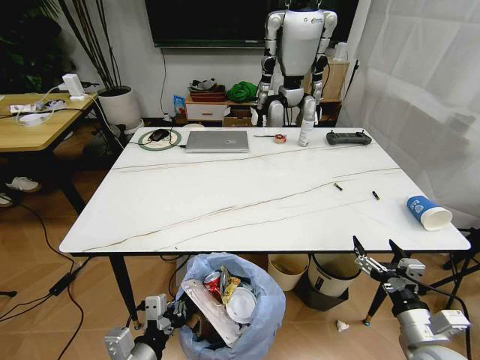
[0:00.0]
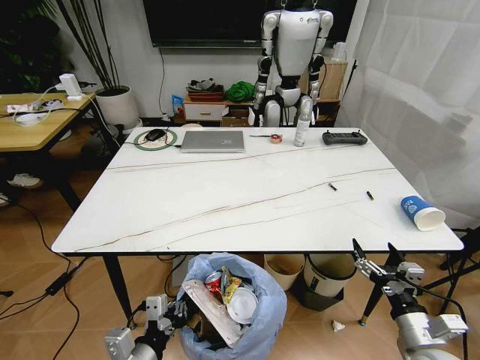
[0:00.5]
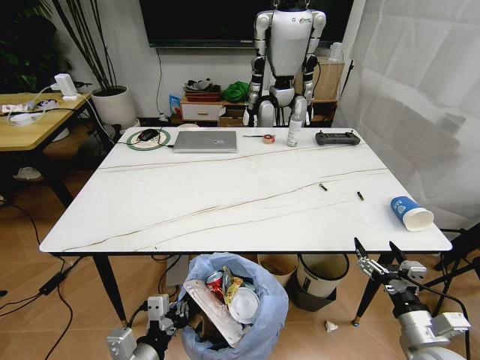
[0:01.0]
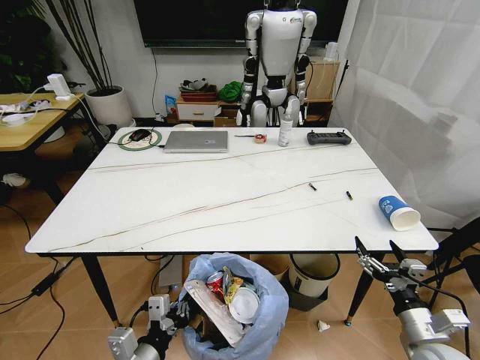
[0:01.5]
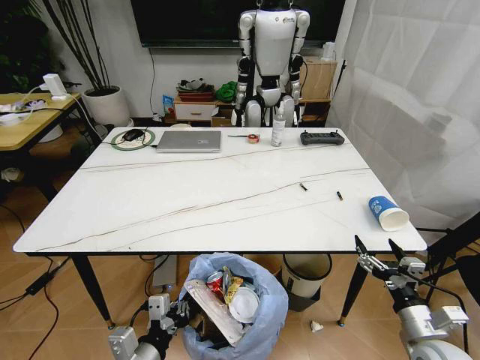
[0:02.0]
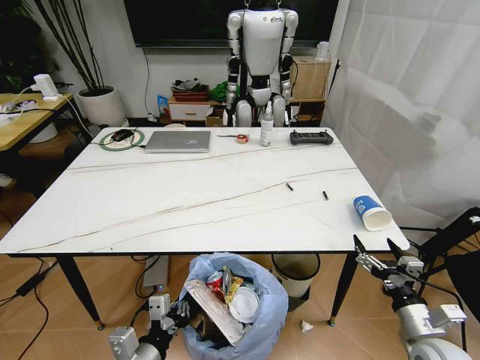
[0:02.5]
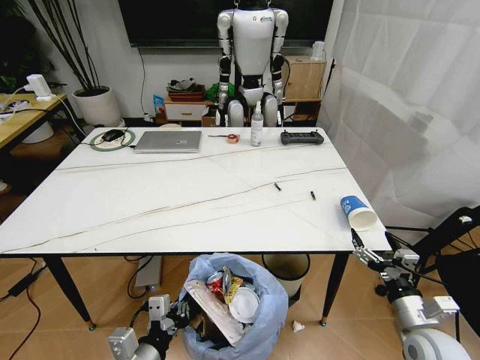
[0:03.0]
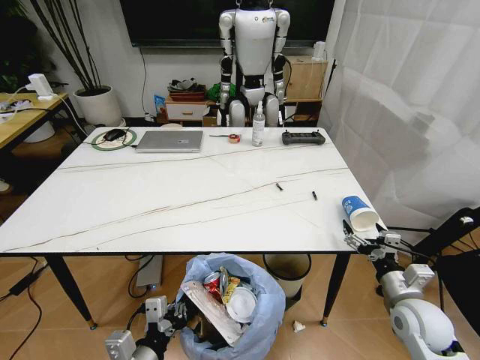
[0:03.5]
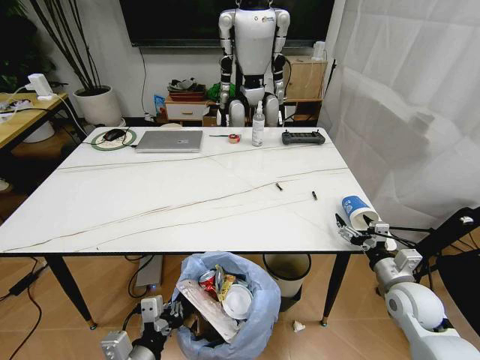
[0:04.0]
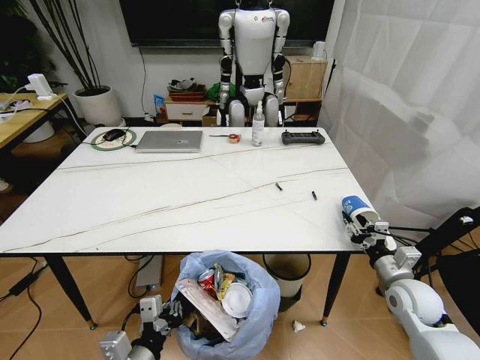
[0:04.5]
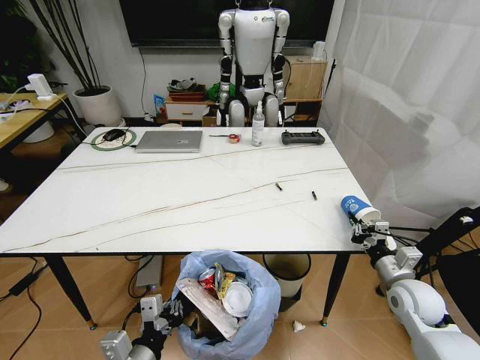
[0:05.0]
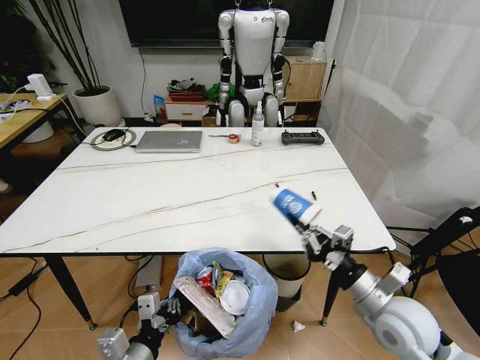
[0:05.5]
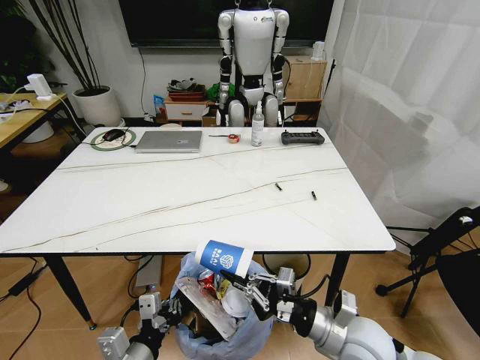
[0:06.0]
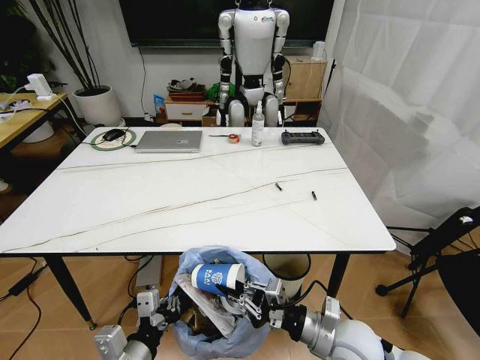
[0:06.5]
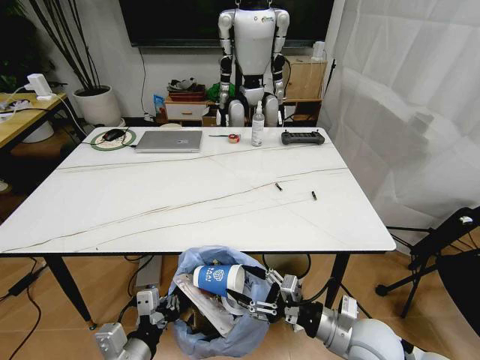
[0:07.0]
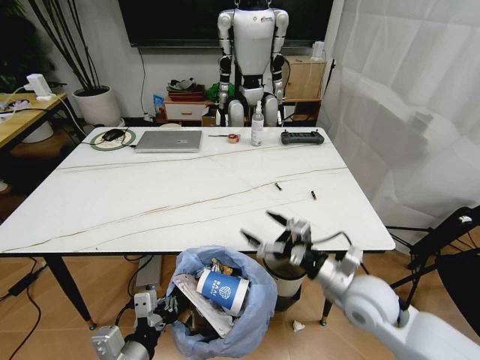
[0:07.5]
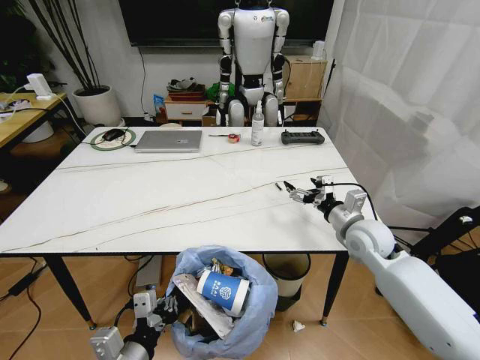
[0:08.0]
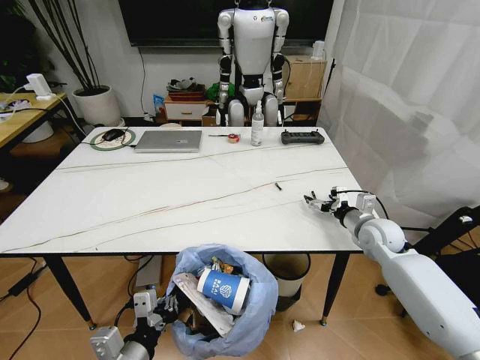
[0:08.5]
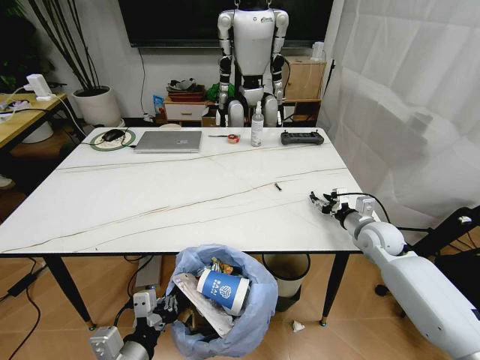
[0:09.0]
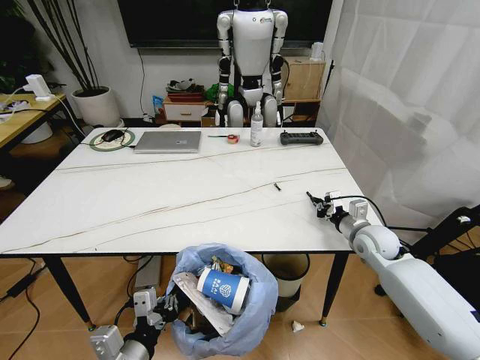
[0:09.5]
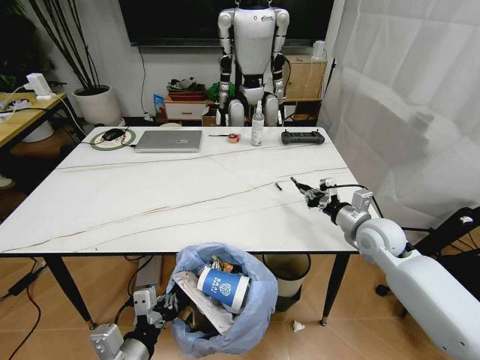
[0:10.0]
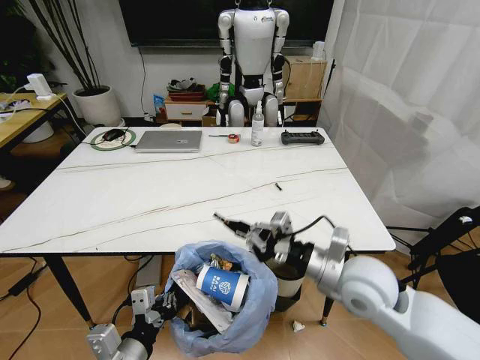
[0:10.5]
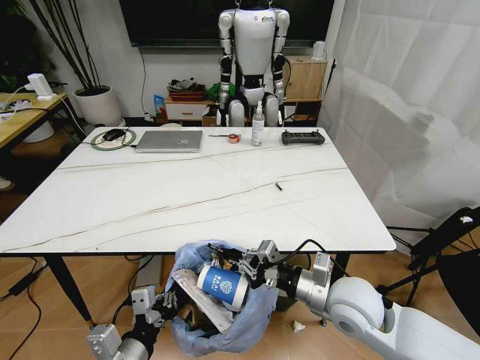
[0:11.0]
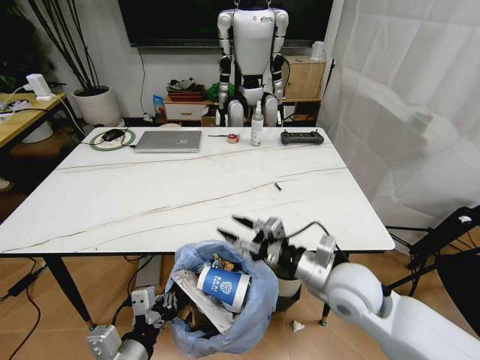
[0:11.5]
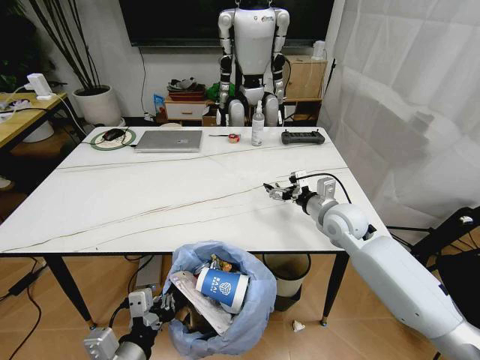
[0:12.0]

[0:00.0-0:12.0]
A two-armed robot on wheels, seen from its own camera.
Task of the whole recording: Pick up the trash bin and place the trash from the table into it.
0:02.0 to 0:04.0: The right gripper shifts roughly 10 cm forward.
0:04.0 to 0:06.0: The right gripper heads to the left and backward, covering roughly 20 cm, and closes up.
0:06.0 to 0:08.0: The right gripper travels forward by roughly 20 cm, and opens its fingers.
0:08.0 to 0:10.0: The right gripper closes up.
0:10.0 to 0:12.0: The right gripper heads to the left, covering approximately 5 cm, moves roughly 15 cm backward and comes back, and opens its fingers.

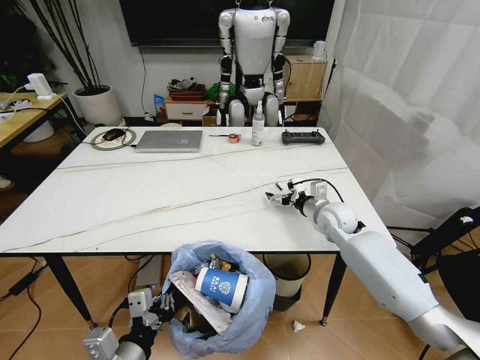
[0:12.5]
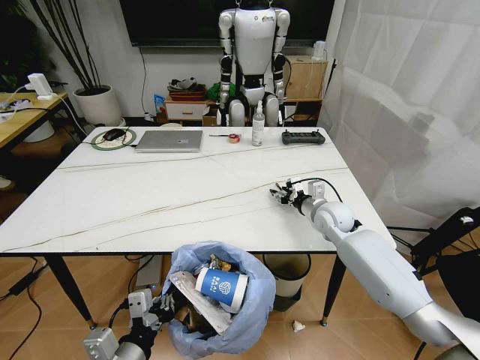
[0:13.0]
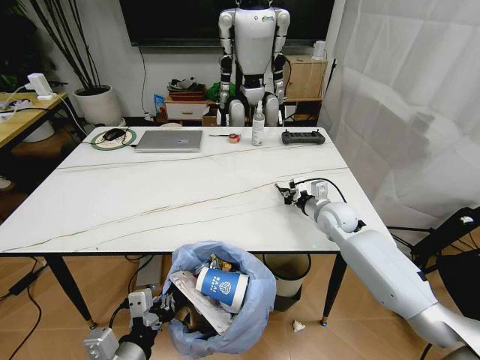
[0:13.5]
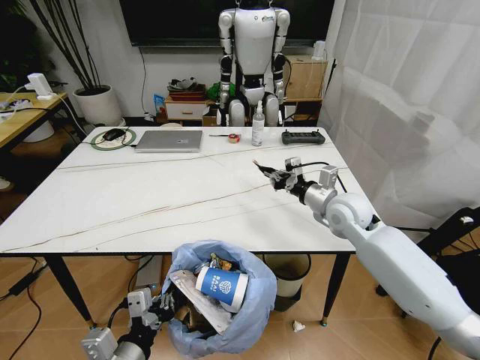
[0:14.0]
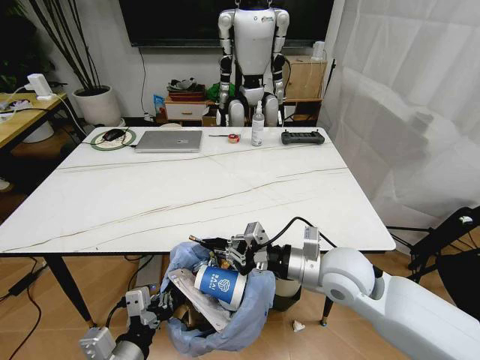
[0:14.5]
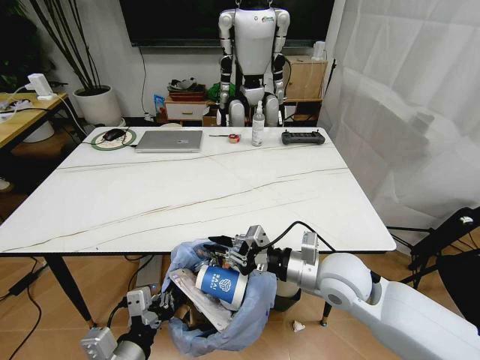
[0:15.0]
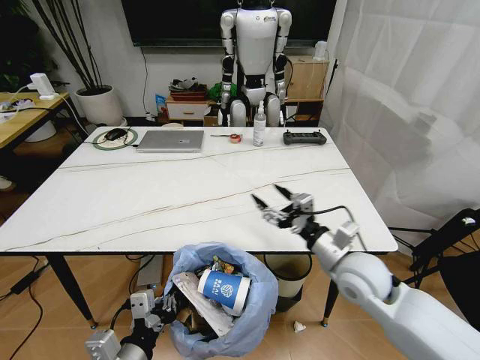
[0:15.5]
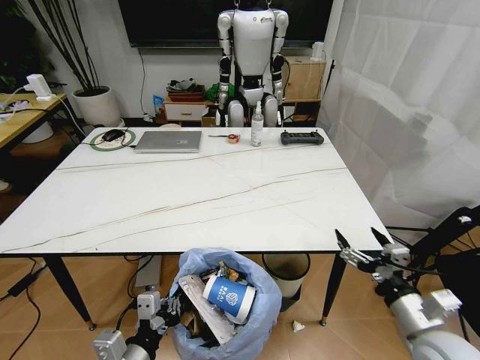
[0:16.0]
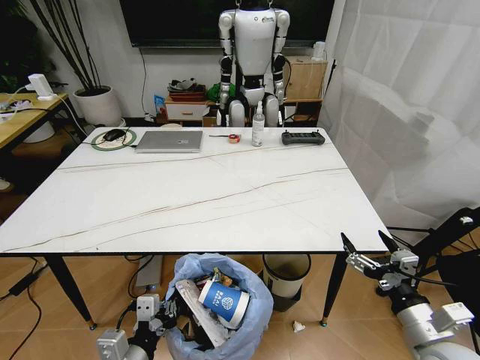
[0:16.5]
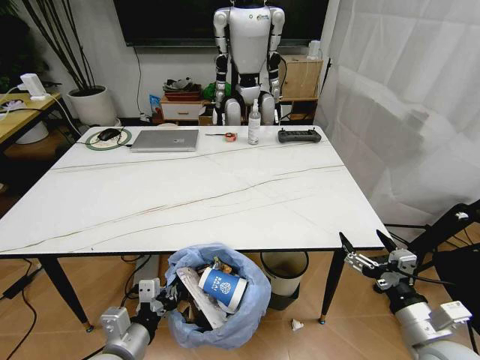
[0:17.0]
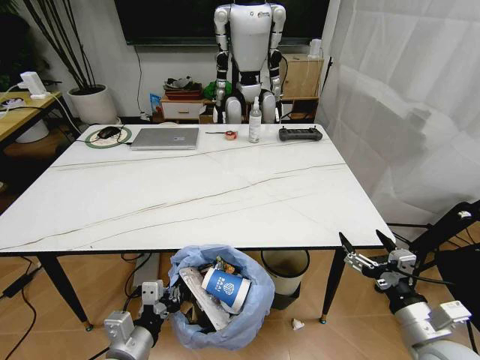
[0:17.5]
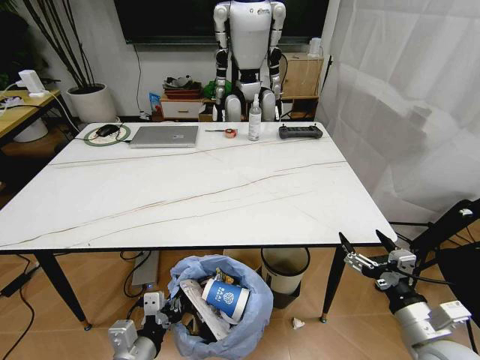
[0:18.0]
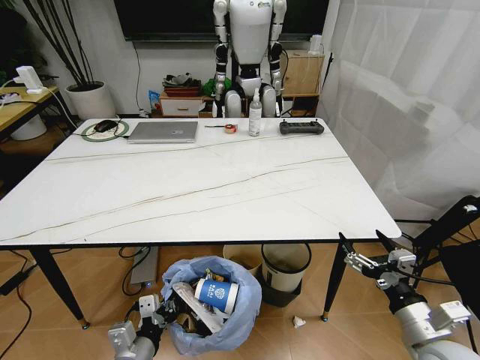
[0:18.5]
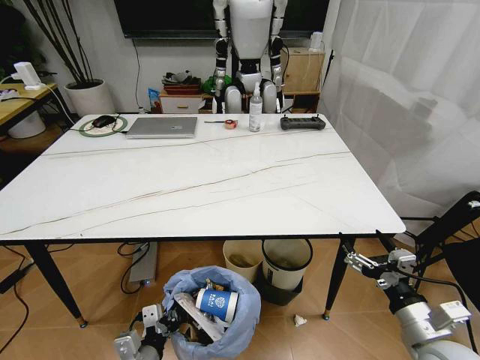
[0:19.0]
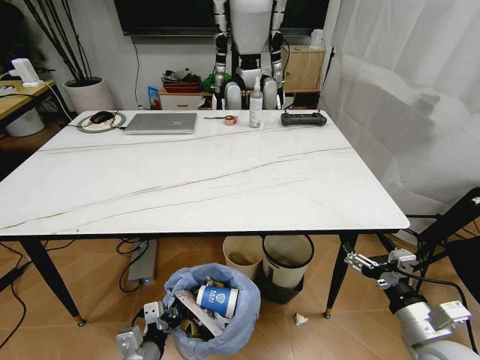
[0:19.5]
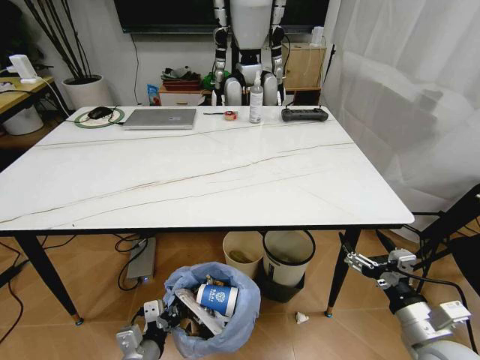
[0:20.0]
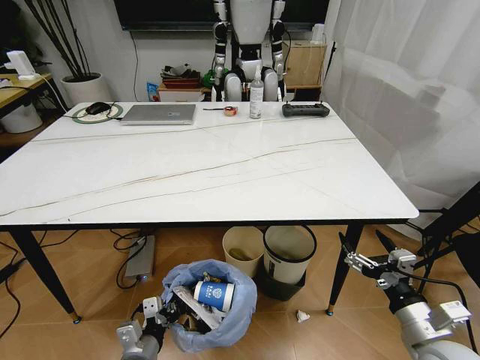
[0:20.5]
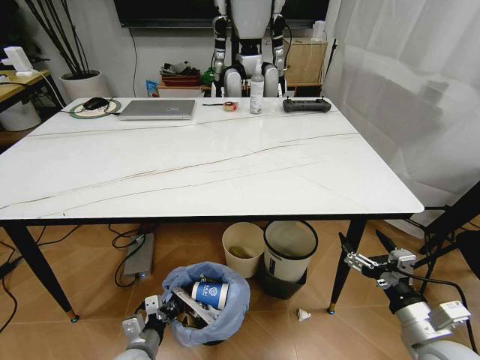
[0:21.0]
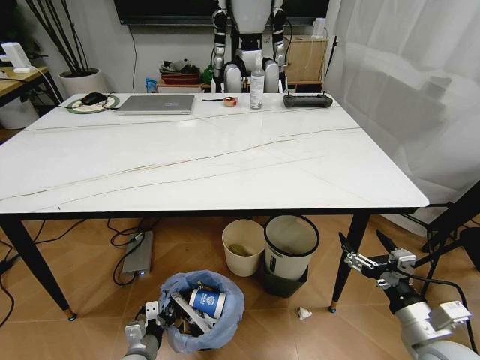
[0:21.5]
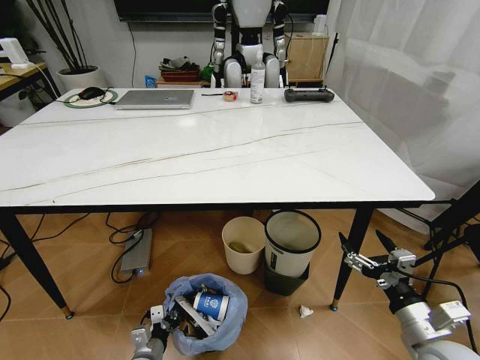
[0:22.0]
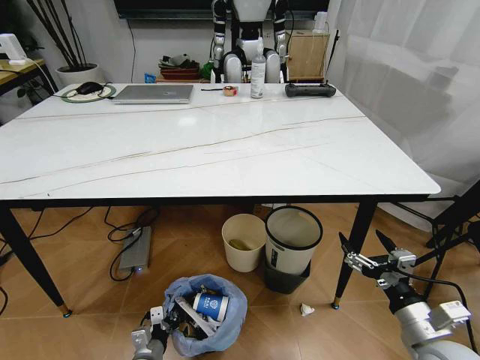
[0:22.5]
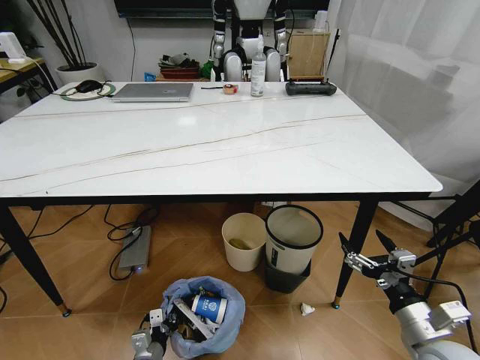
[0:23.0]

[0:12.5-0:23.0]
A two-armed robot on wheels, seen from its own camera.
Task of the whole recording: Pick up the trash bin and place the trash from the table into it.
0:12.5 to 0:14.5: The right gripper shifts roughly 20 cm backward, and closes up.
0:14.5 to 0:16.5: The right gripper shifts roughly 25 cm to the right, backward and downward, and opens.
0:16.5 to 0:19.0: The left gripper shifts some 10 cm downward.
0:19.0 to 0:21.0: The left gripper is displaced downward and forward by about 10 cm.
0:21.0 to 0:23.0: The left gripper goes approximately 10 cm downward.

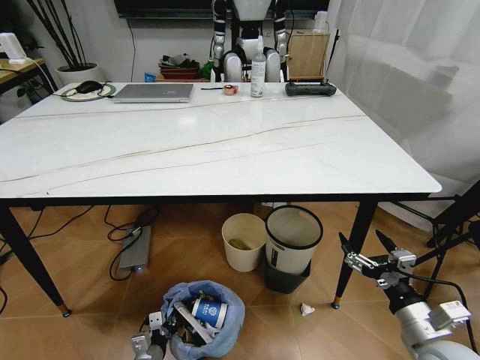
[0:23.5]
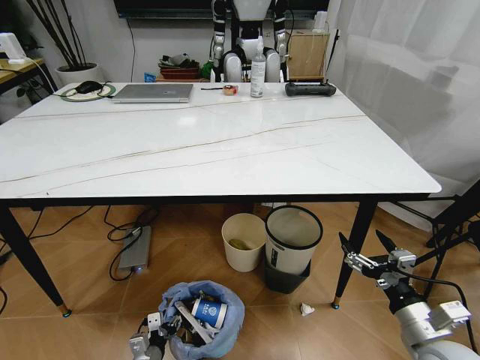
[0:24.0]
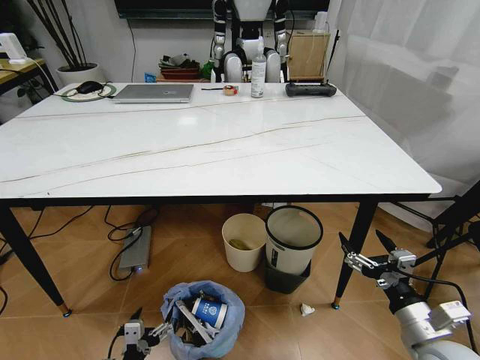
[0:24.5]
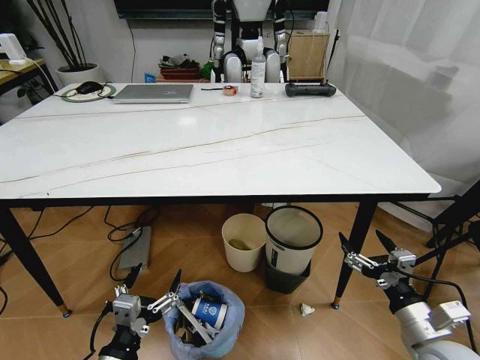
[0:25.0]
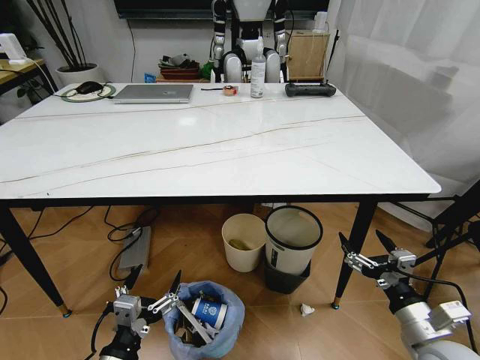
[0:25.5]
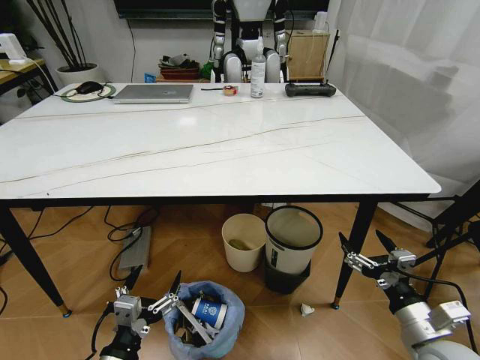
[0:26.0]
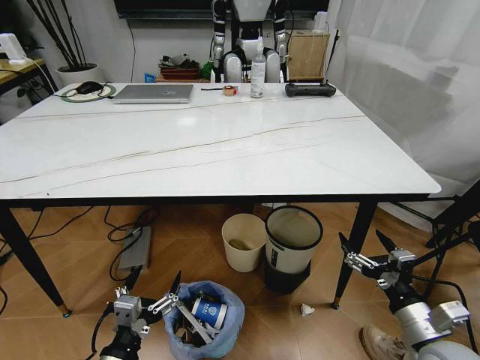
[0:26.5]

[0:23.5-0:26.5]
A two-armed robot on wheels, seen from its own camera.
Task of the whole recording: Pick up the trash bin and place the trash from the table into it.
0:23.5 to 0:25.0: The left gripper travels upward by approximately 25 cm, and opens.
0:25.0 to 0:26.5: Neither gripper changes place.
